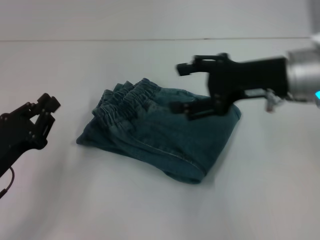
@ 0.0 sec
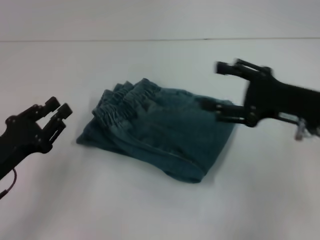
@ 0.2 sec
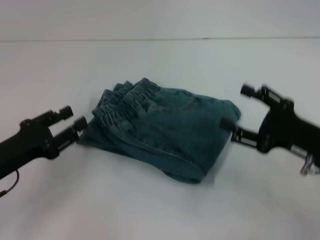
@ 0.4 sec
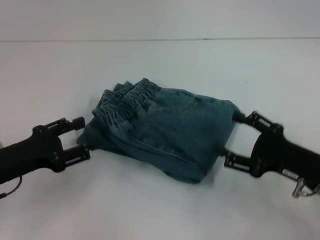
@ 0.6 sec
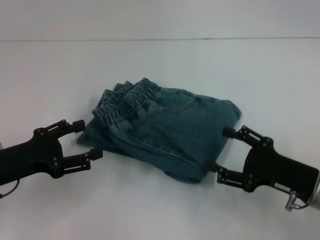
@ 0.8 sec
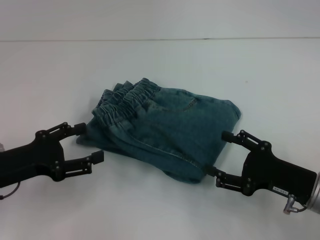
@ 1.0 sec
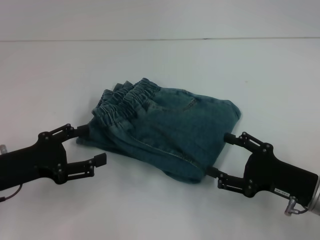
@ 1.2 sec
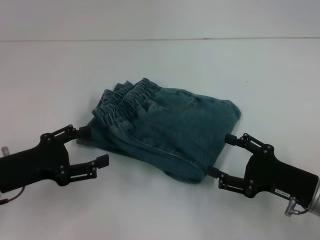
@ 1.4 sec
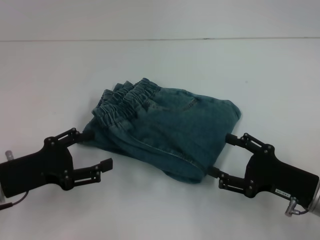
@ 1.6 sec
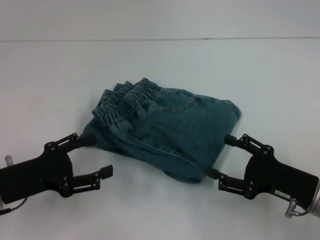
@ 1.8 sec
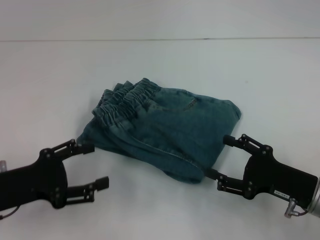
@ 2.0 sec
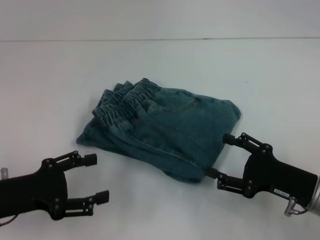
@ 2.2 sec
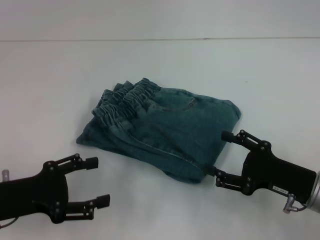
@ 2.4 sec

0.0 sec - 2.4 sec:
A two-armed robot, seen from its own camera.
0.0 sec - 1.2 sec: The left gripper opens, while the right gripper moves downward and backward, roughly 20 cm.
1.2 sec - 2.4 sec: The grippers stay close to where they were, moving slightly.
